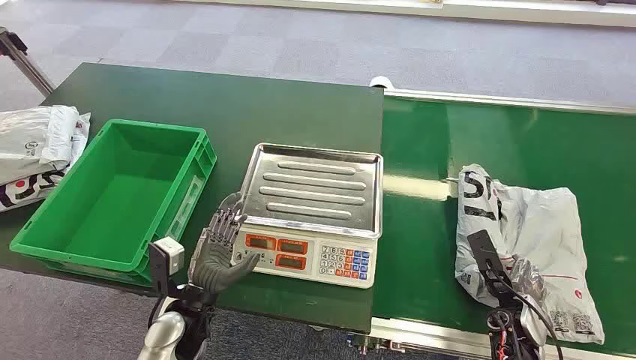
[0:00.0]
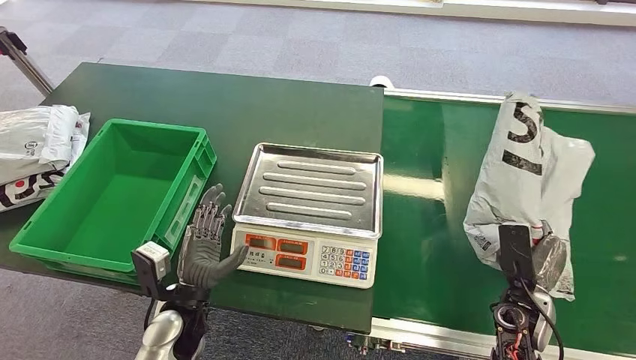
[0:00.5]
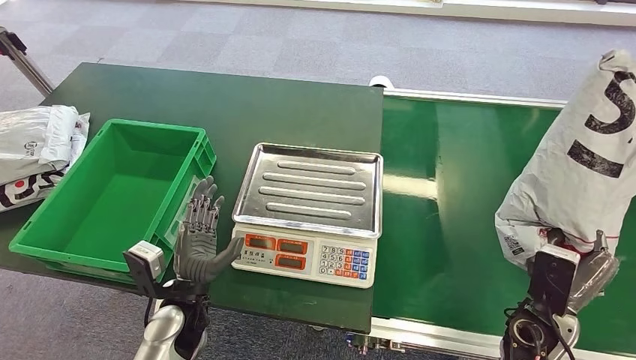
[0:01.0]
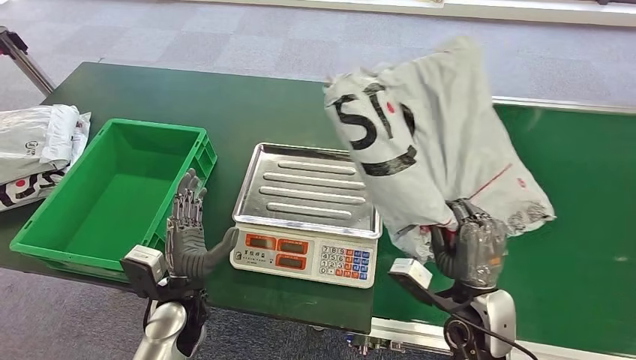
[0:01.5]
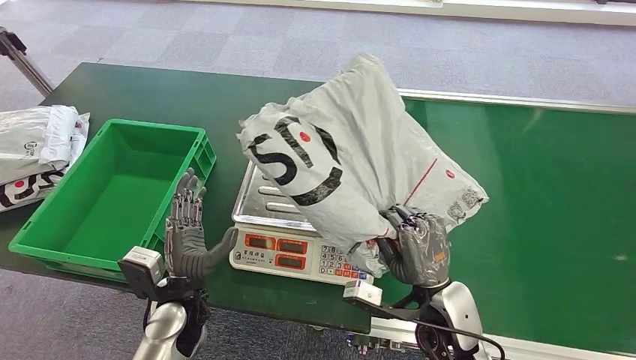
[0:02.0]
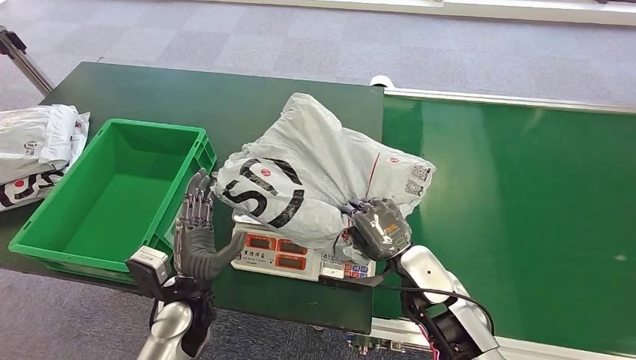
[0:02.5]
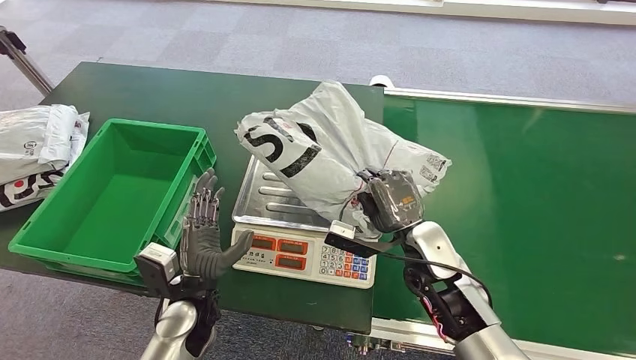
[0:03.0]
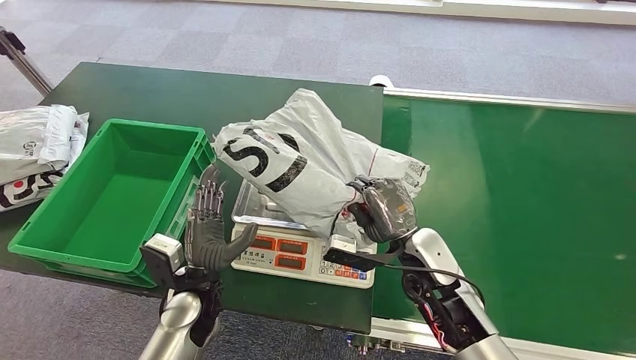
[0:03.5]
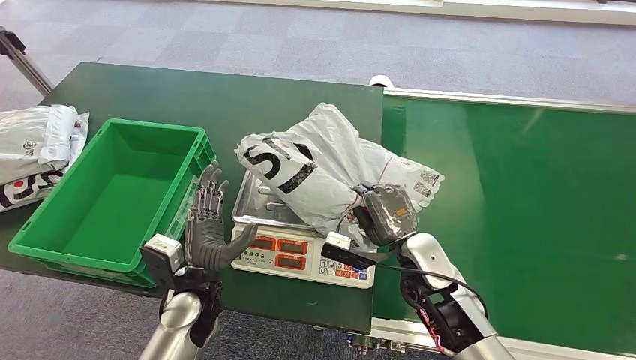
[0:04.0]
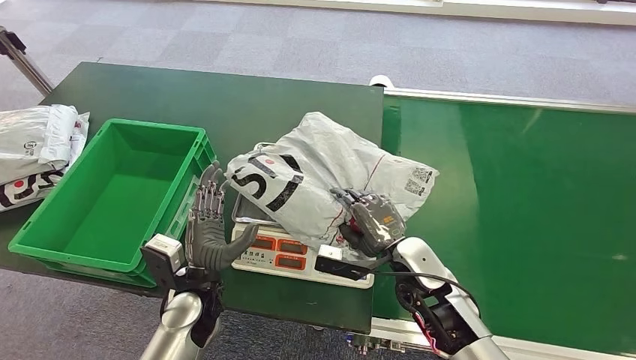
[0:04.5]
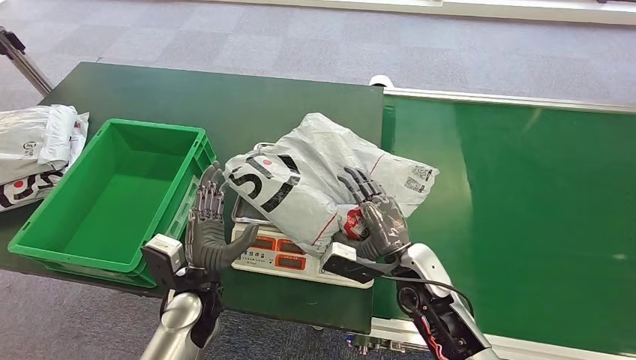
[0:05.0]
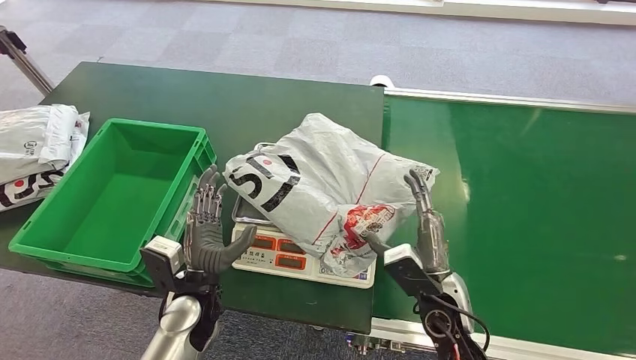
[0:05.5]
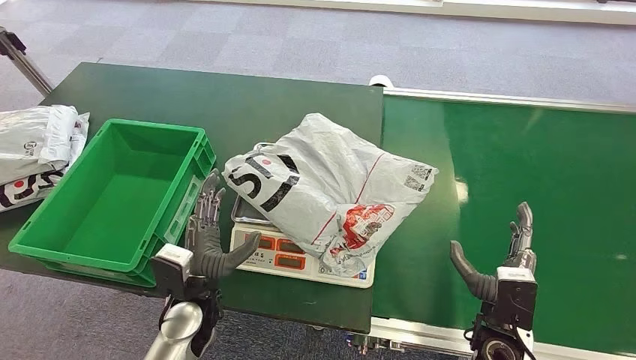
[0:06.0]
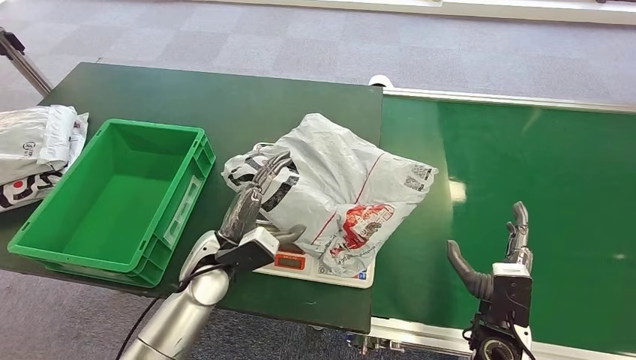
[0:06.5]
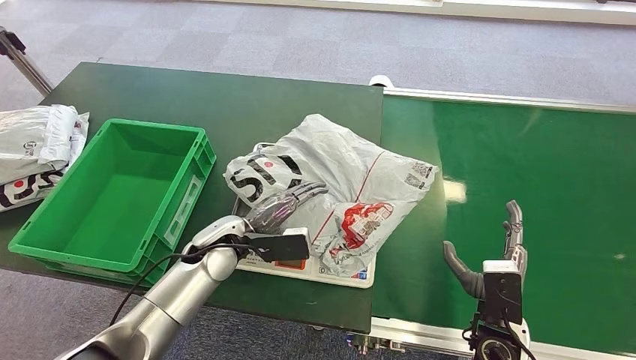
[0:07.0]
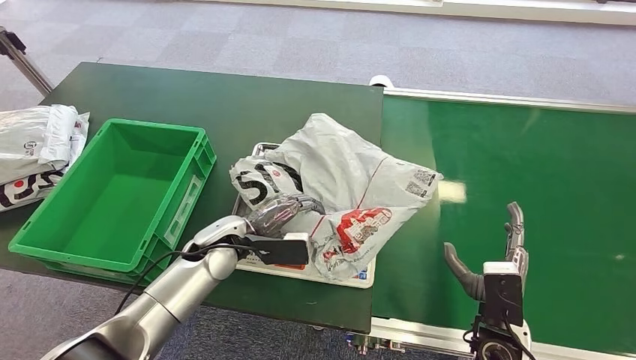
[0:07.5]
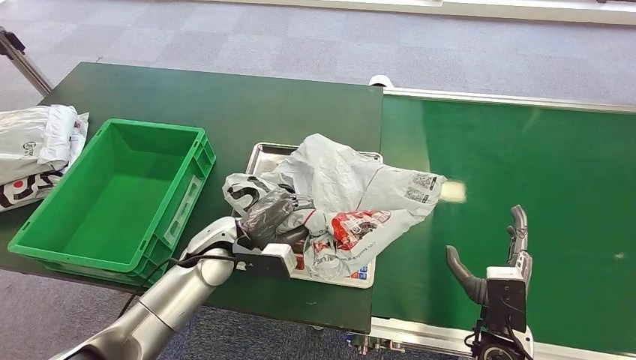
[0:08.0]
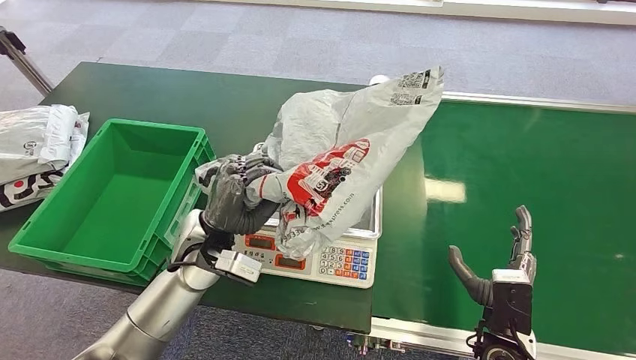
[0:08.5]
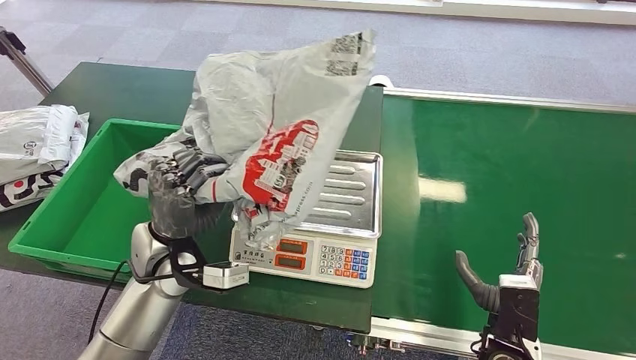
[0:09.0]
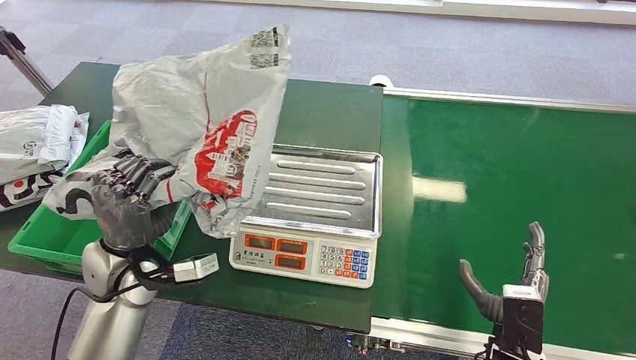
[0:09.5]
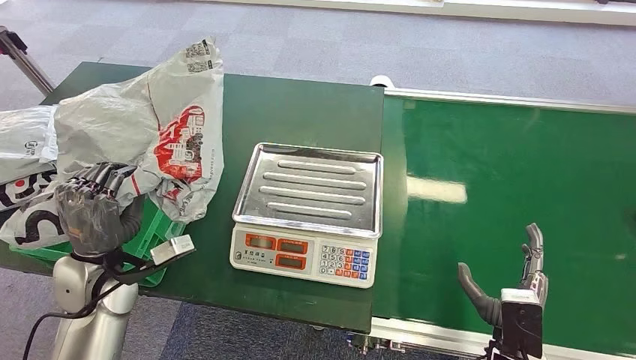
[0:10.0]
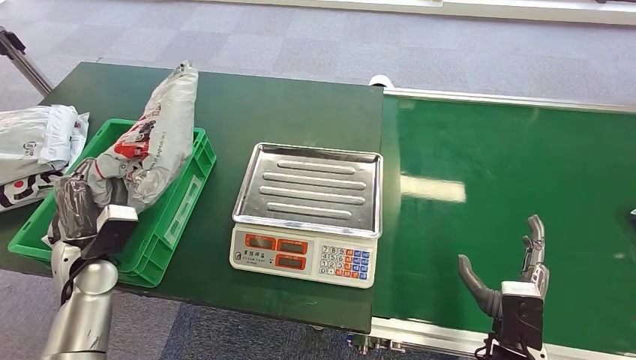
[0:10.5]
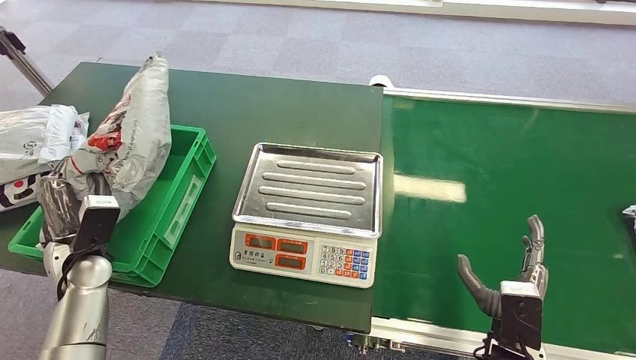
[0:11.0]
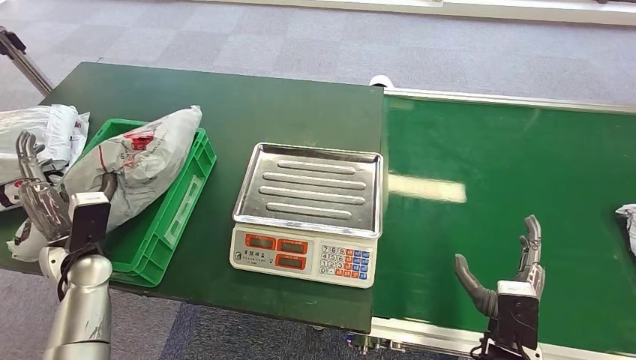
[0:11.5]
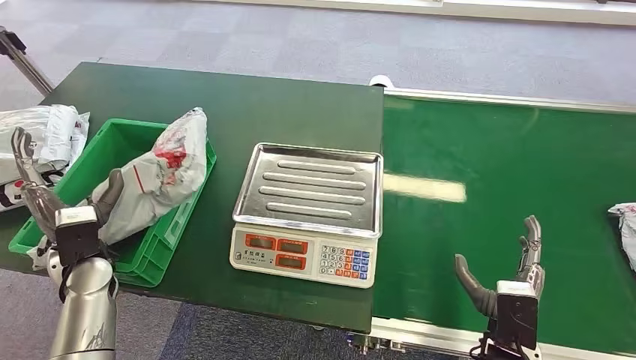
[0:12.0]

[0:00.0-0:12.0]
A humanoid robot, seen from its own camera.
Step, 0:00.0 to 0:01.0: Pick up the package from the conveyor belt.
Step, 0:02.0 to 0:04.5: Place the package onto the inbound machine.
Step, 0:08.0 to 0:09.0: Pick up the package from the inbound machine.
Step, 0:10.0 to 0:11.5: Place the package into the parcel locker.
0:02.0 to 0:04.0: The right hand travels forward by some 5 cm.
0:04.0 to 0:06.0: The right hand moves to the right and backward, some 15 cm.
0:06.0 to 0:08.0: The left hand goes some 10 cm forward.
0:10.0 to 0:12.0: The left hand ends up some 5 cm from where it was.
